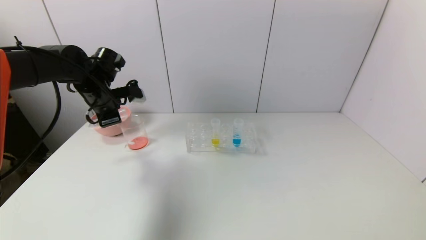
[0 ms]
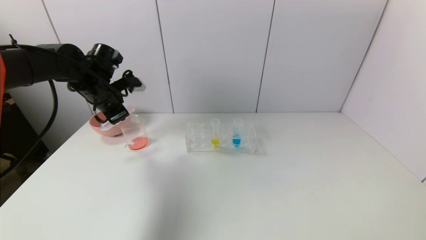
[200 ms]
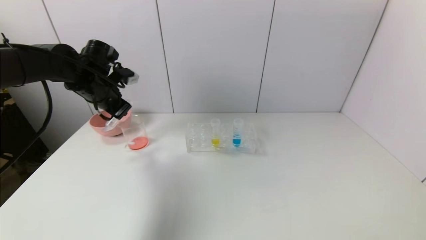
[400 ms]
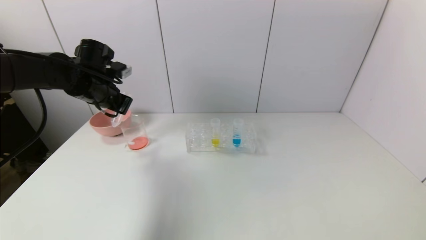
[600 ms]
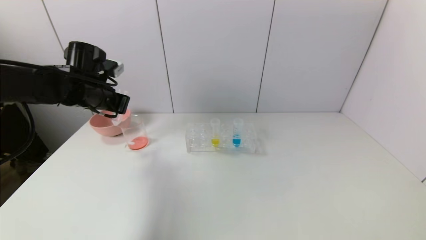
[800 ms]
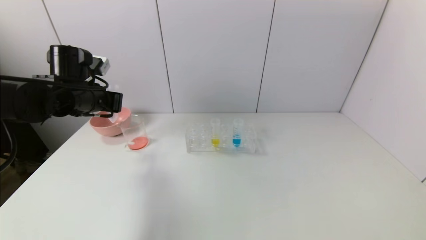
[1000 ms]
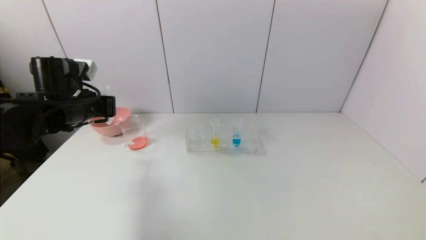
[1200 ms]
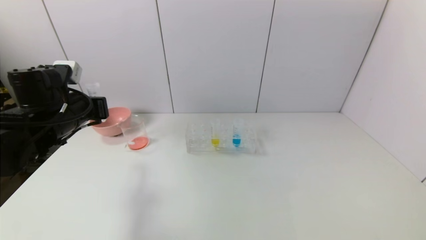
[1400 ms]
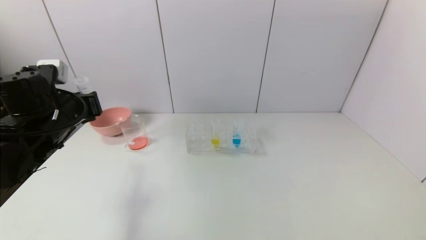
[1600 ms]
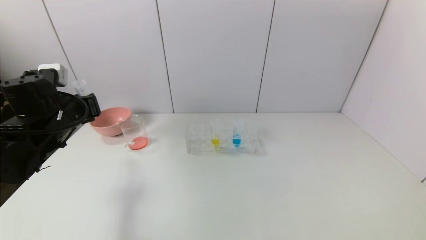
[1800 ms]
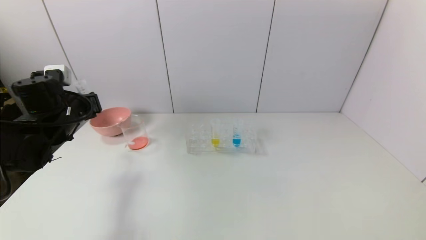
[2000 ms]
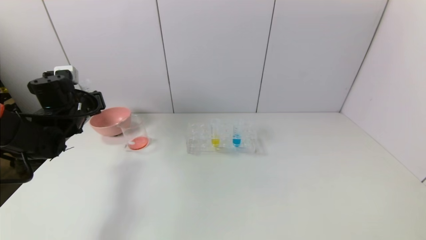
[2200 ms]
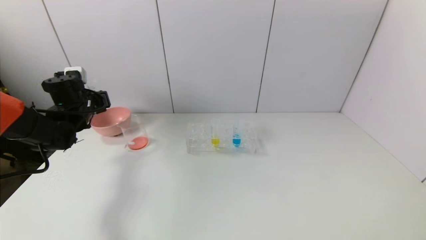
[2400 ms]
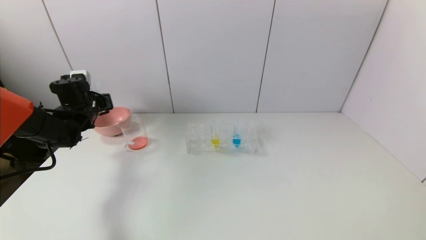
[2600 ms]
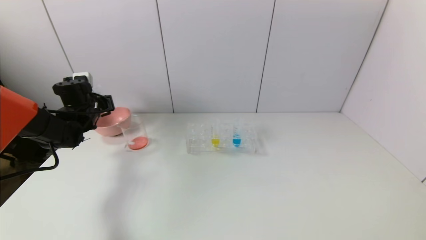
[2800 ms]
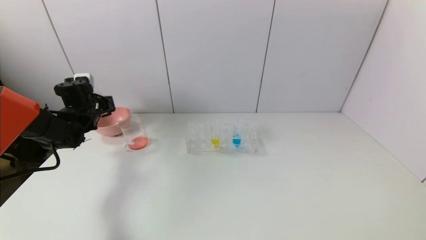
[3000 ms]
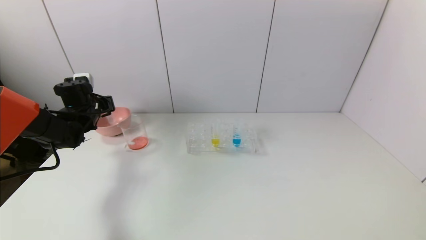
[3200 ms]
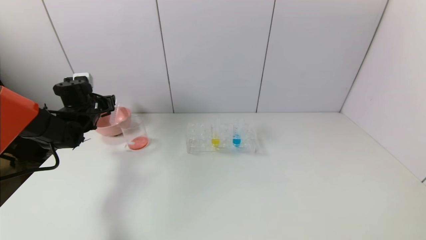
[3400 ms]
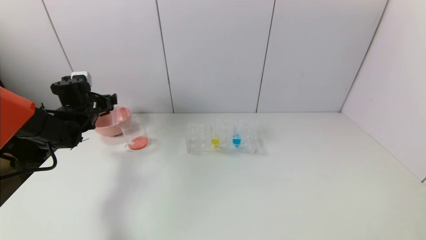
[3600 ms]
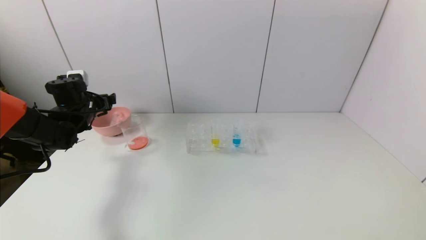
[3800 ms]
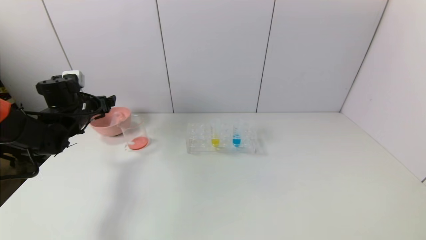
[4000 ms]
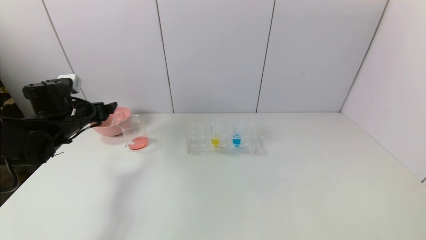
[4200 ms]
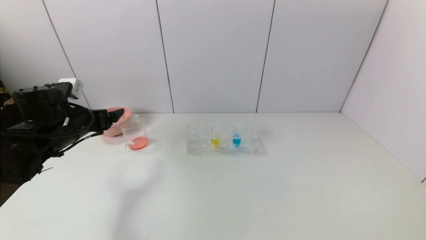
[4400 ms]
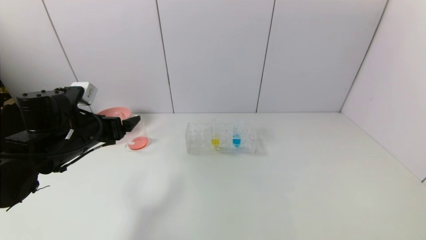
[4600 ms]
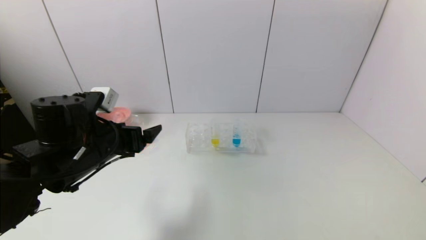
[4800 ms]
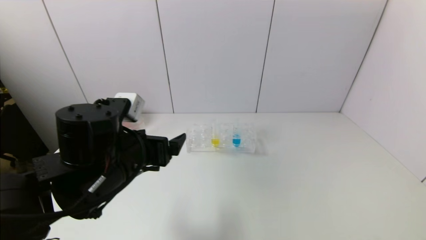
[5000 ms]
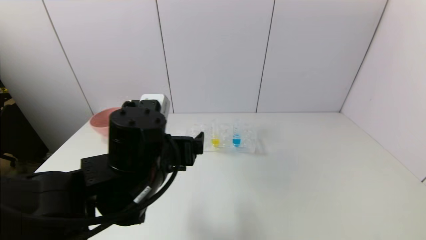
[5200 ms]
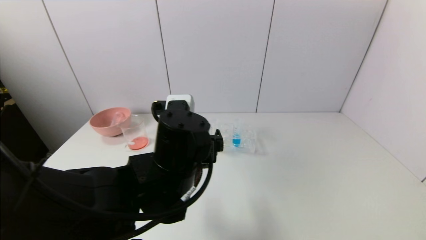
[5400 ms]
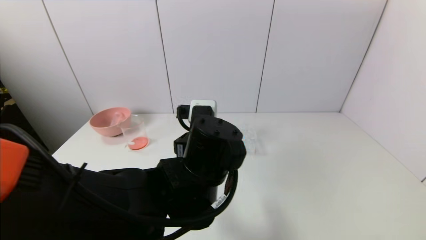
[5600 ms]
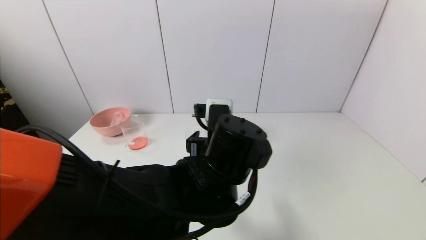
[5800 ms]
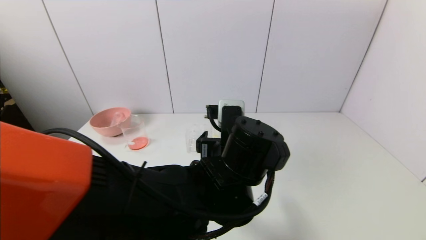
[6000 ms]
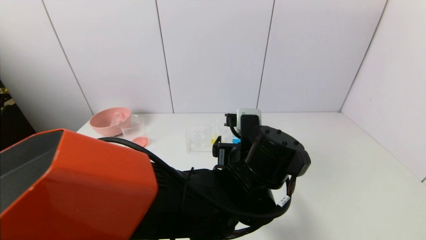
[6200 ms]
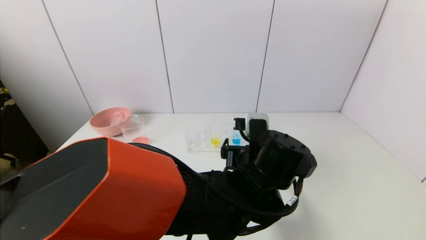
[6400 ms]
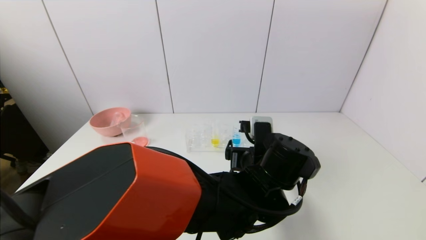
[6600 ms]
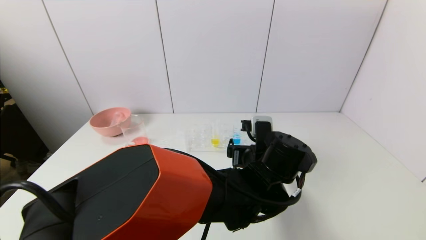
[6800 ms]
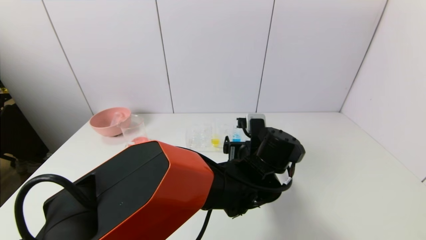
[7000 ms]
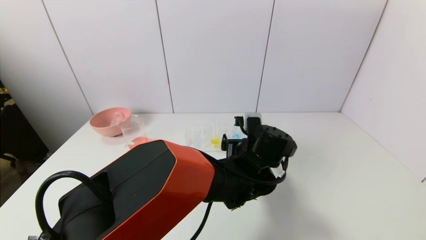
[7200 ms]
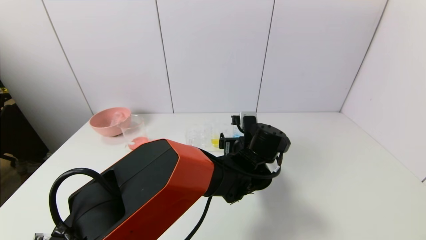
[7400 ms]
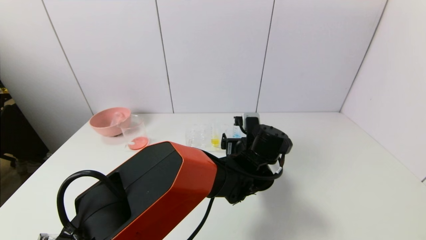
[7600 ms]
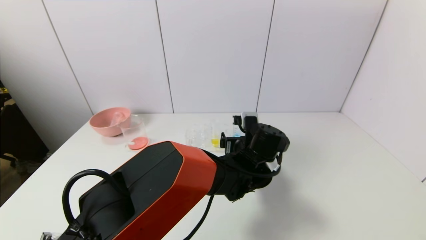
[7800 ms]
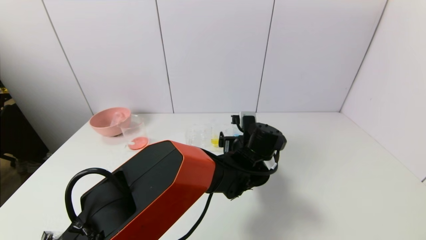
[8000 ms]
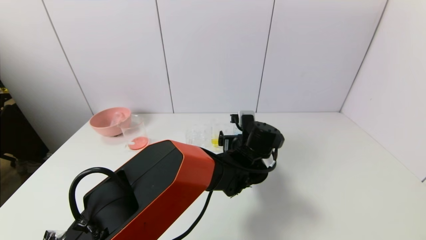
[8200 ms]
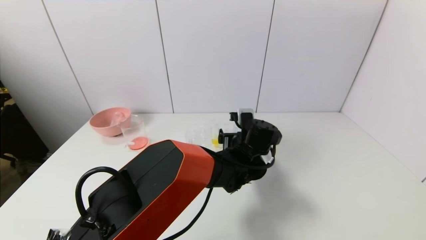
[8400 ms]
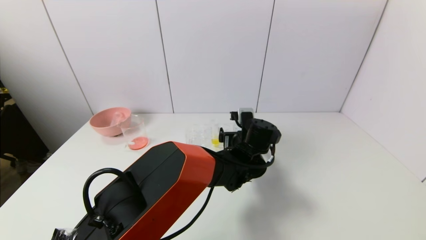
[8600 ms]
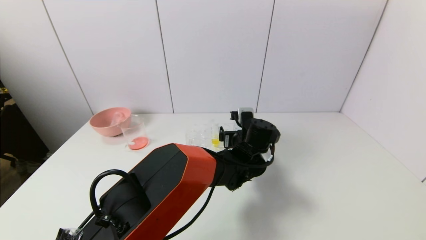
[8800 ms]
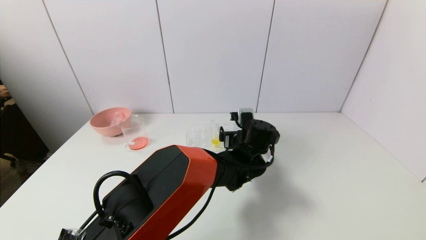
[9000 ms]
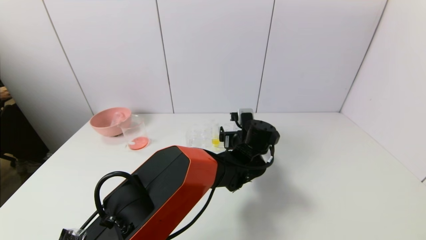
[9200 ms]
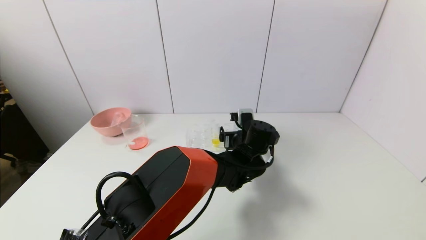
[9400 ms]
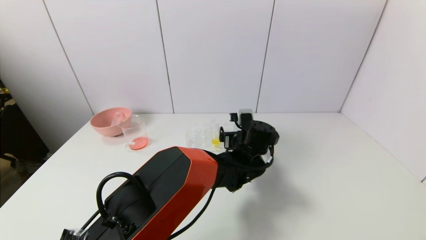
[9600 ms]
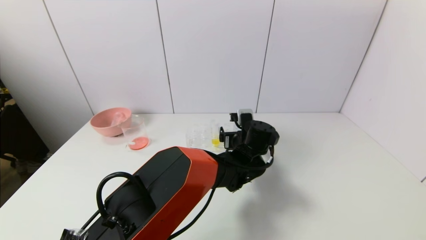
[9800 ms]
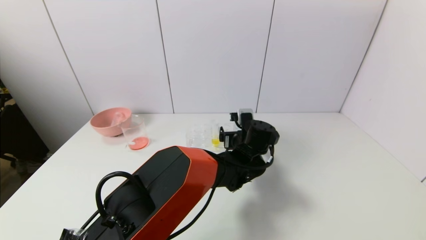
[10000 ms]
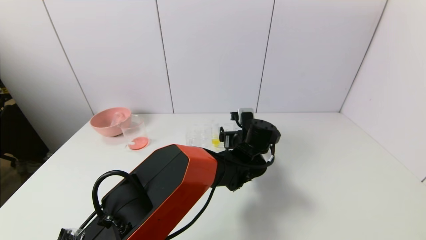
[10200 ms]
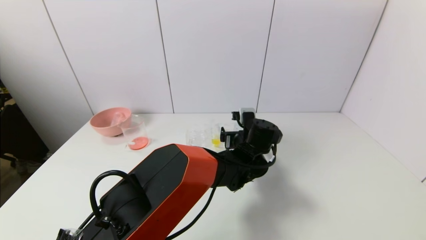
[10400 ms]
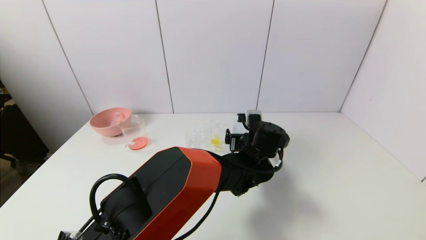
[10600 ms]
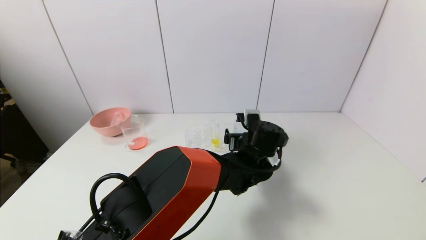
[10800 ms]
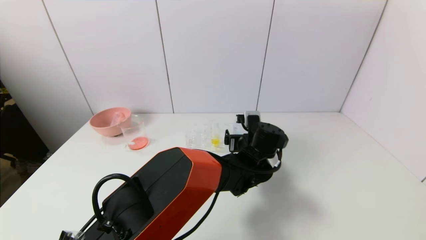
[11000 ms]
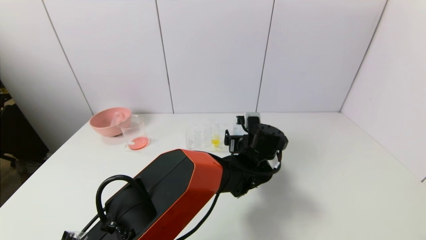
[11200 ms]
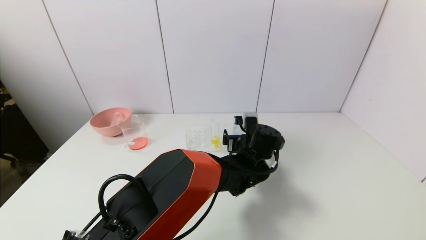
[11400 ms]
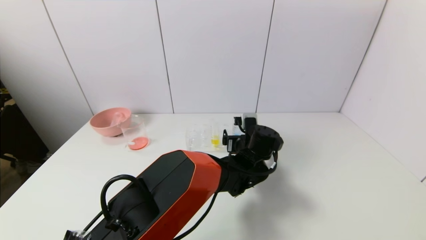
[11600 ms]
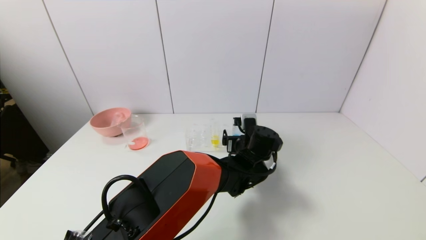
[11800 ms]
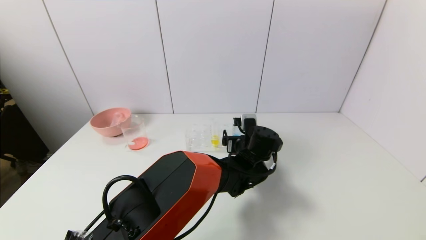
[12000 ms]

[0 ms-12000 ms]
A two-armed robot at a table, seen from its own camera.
Task of the whole recording: pick up the test tube with red pigment and the test tube with blue pigment by grippers and pour them into the container.
Step, 0 ms to 3400 ms: Place the test tube into the bowl with the left gripper.
0 ms to 1600 ms: The left gripper is displaced backward by approximately 10 cm.
1600 ms to 3000 ms: The left gripper moves forward and downward, some 15 cm.
3000 ms to 4400 ms: The left gripper shifts approximately 10 cm backward, and opens its fingers.
4400 ms to 6000 ms: The left gripper heads to the right, covering some 35 cm.
6000 ms to 7600 ms: The left gripper is displaced forward, downward and to the right by some 15 cm.
7600 ms to 12000 ms: The grippers make only small movements.

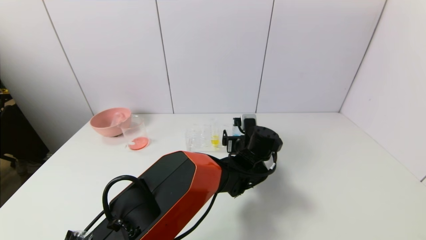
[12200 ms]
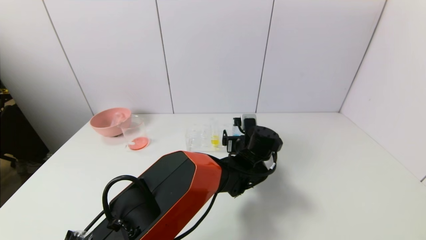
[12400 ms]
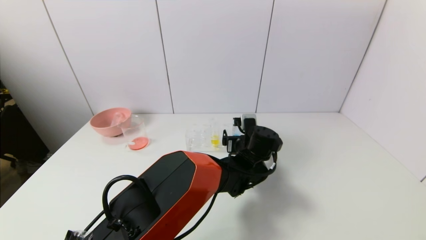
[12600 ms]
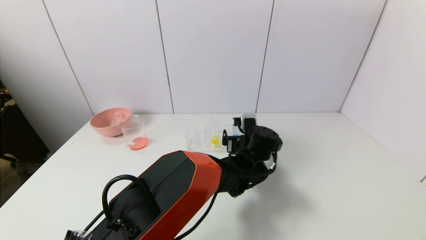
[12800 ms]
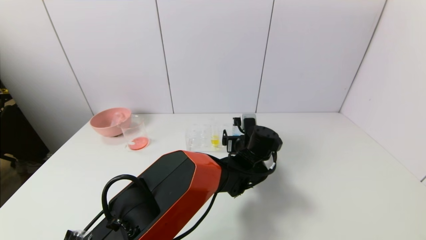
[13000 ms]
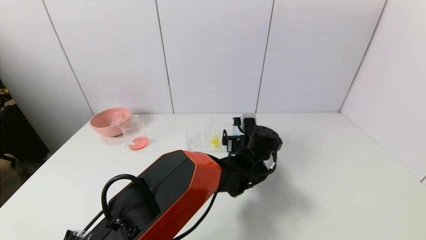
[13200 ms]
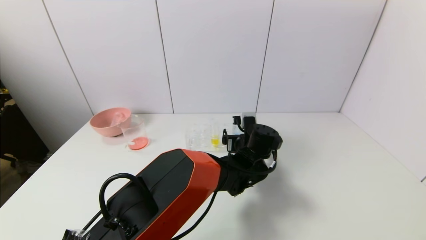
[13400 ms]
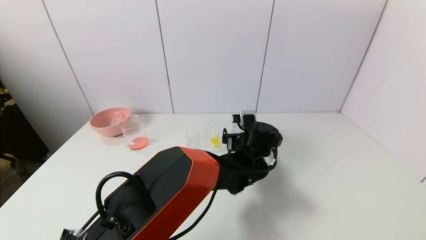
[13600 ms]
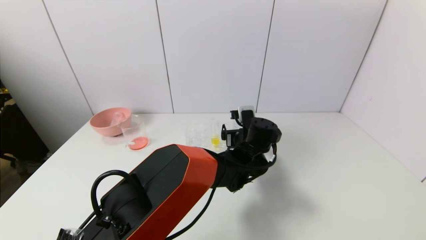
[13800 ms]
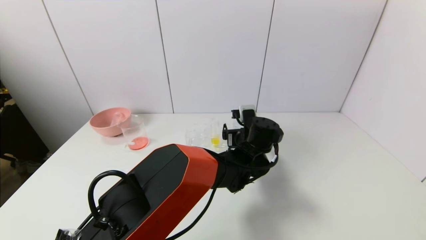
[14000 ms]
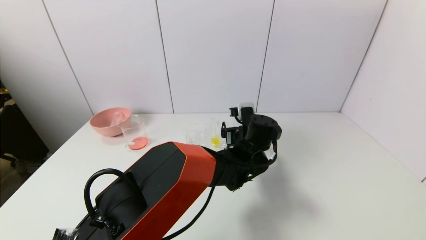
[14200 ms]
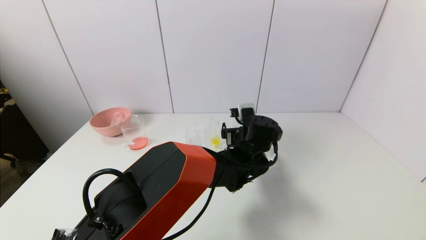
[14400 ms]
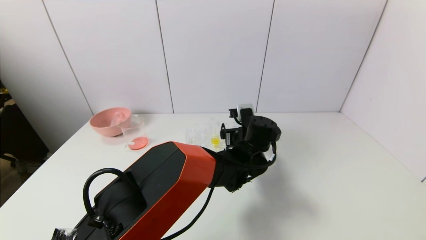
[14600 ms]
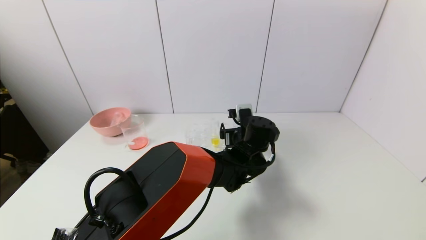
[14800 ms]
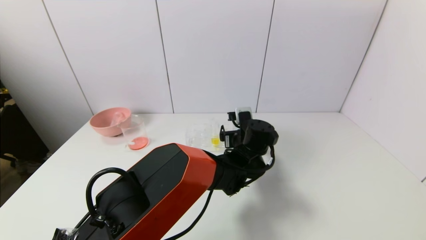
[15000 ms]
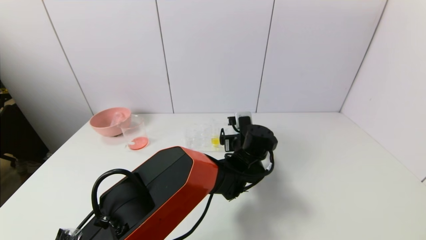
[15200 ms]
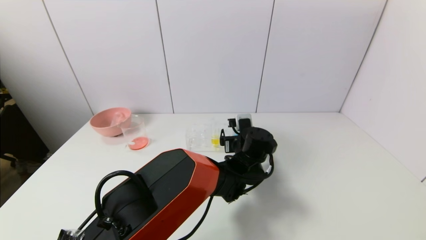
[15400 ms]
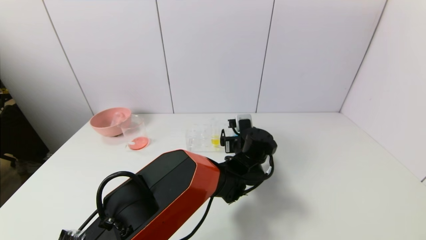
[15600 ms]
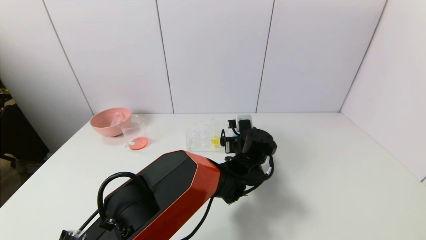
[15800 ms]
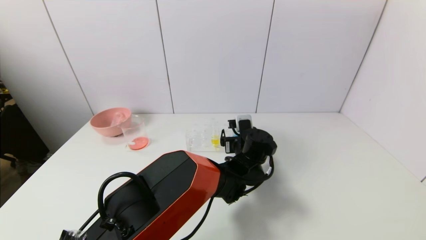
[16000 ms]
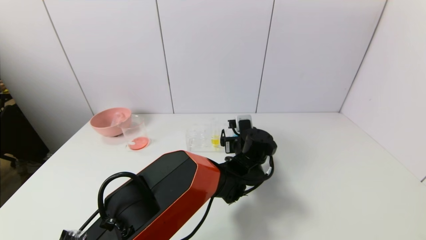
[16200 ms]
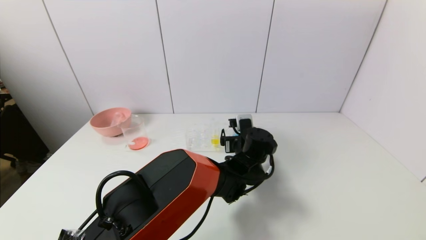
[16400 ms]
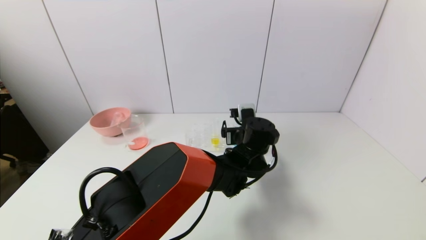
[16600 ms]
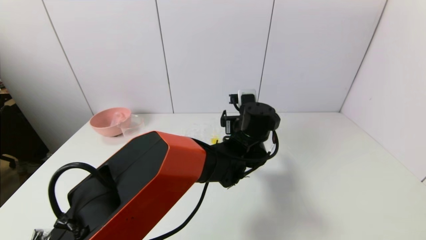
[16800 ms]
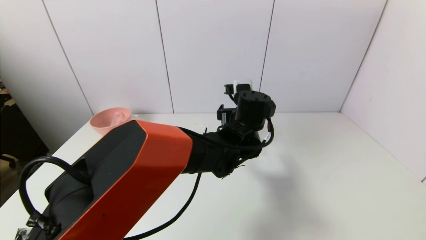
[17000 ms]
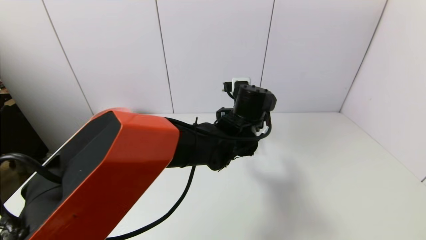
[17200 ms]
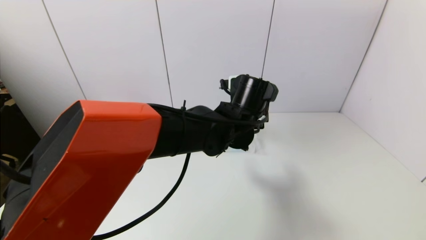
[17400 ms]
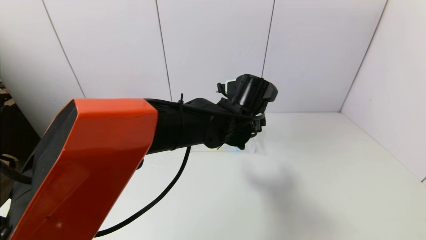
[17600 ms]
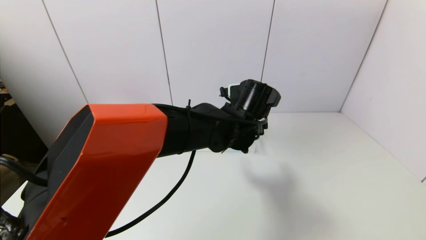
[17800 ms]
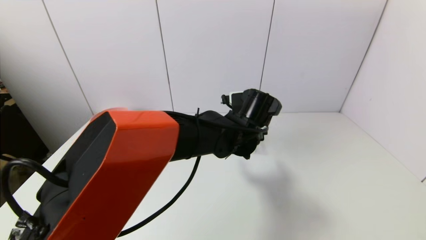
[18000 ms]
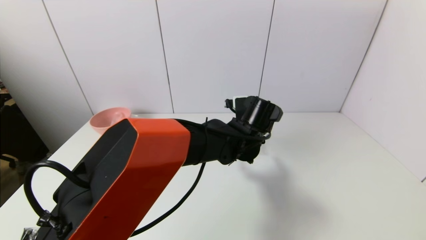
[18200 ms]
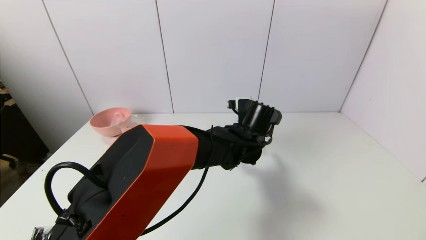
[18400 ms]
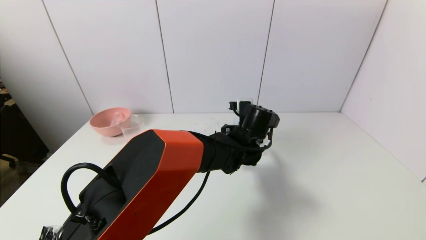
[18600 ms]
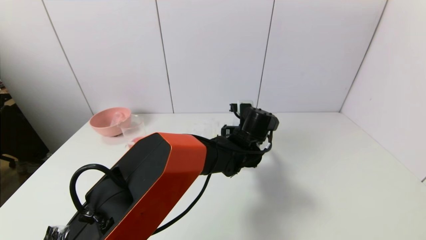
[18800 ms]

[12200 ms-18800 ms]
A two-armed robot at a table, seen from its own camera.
Task of the whole recording: pick up the test tube with red pigment and the test tube with blue pigment by grippers and pour them into the container.
12200 ms to 15400 ms: There are only small adjustments of the grippers.
15400 ms to 17200 ms: The left gripper moves upward, roughly 10 cm.
17200 ms to 18800 ms: The left gripper goes approximately 5 cm downward.
